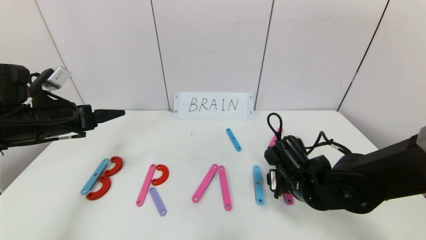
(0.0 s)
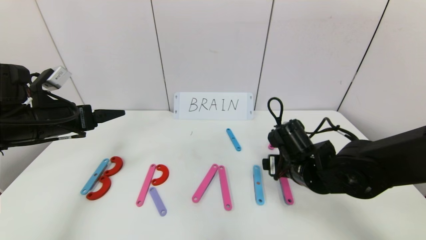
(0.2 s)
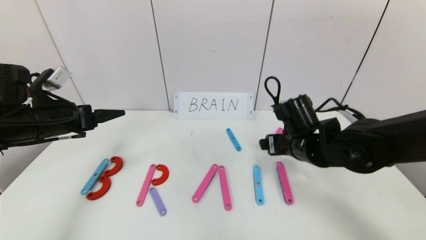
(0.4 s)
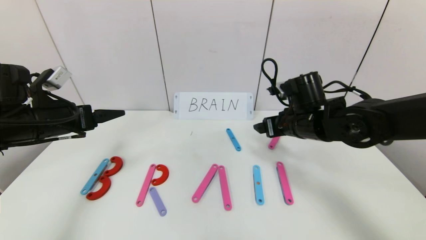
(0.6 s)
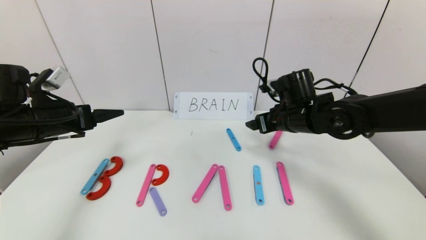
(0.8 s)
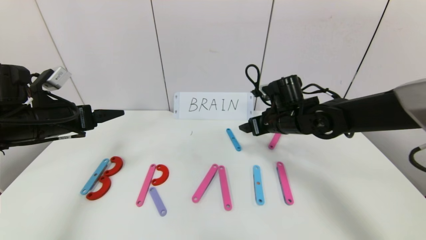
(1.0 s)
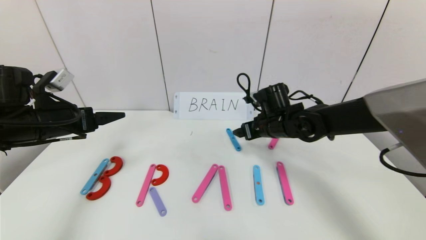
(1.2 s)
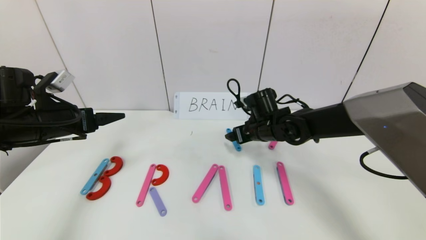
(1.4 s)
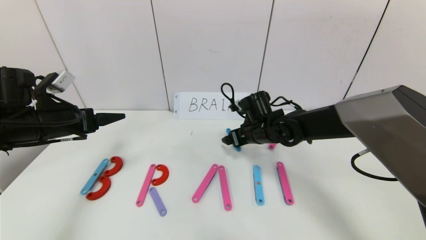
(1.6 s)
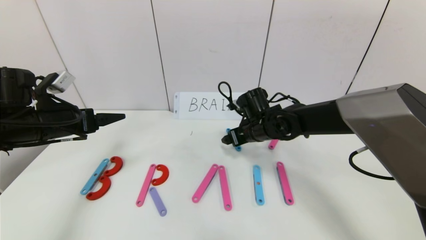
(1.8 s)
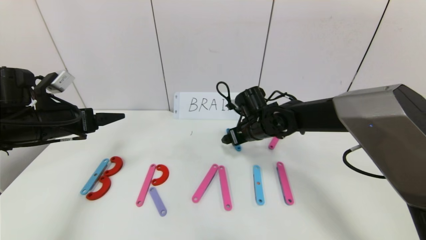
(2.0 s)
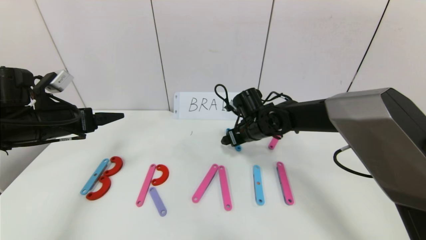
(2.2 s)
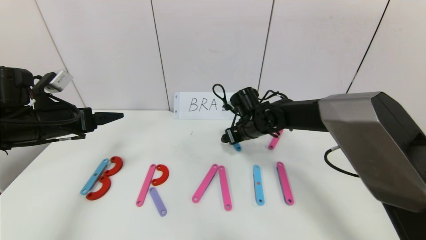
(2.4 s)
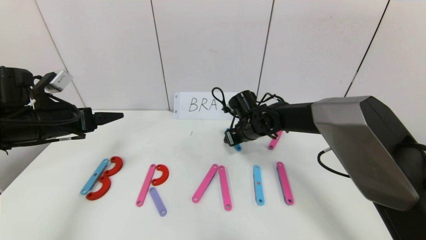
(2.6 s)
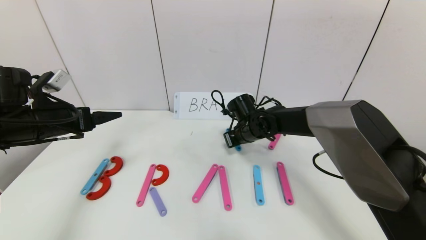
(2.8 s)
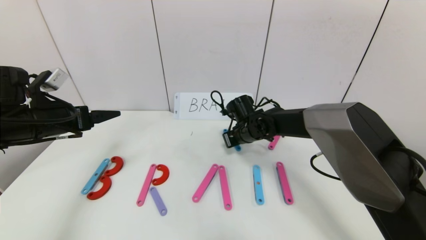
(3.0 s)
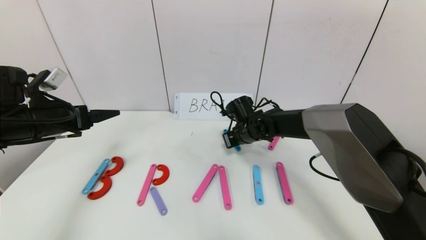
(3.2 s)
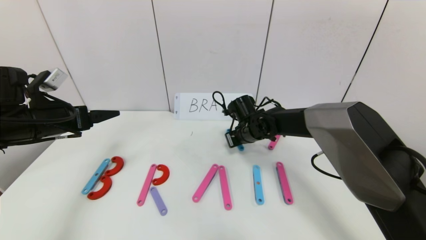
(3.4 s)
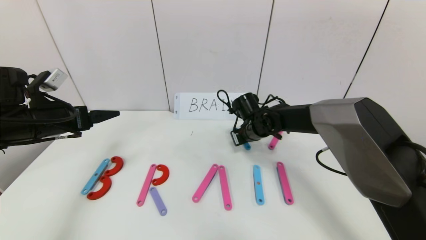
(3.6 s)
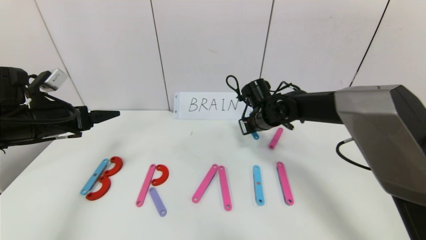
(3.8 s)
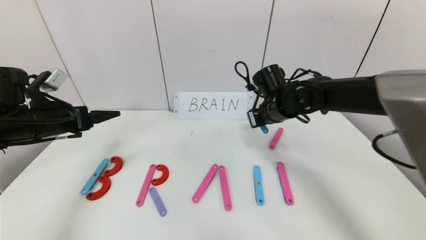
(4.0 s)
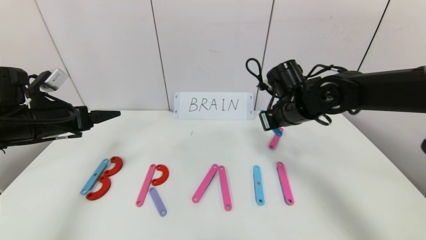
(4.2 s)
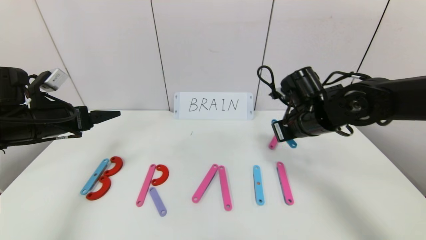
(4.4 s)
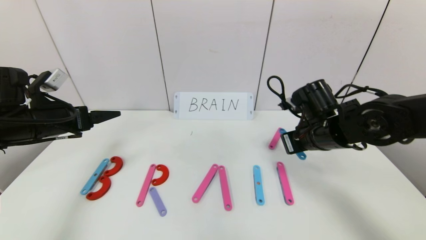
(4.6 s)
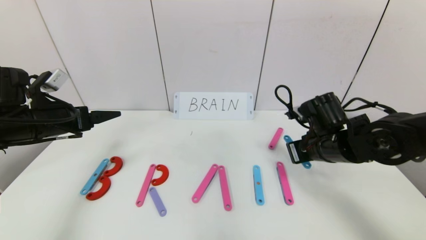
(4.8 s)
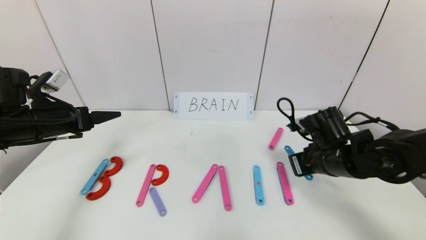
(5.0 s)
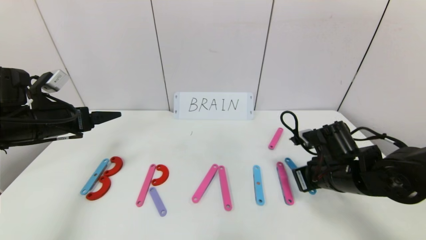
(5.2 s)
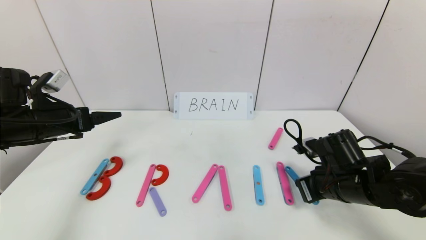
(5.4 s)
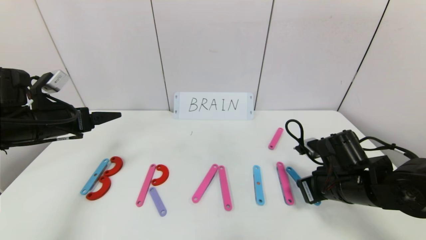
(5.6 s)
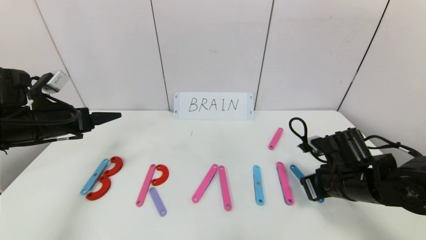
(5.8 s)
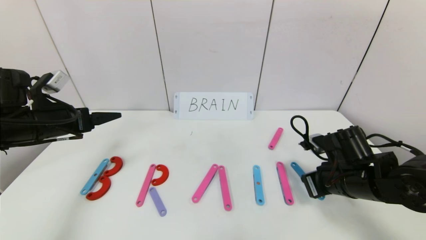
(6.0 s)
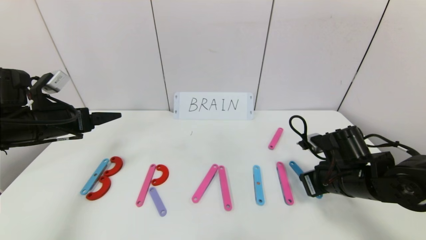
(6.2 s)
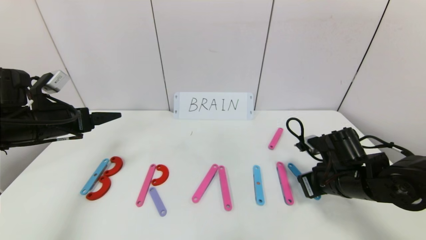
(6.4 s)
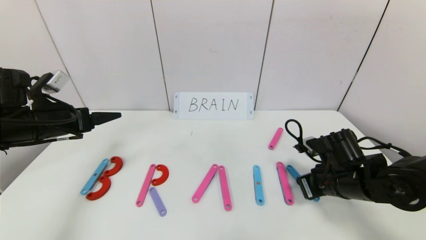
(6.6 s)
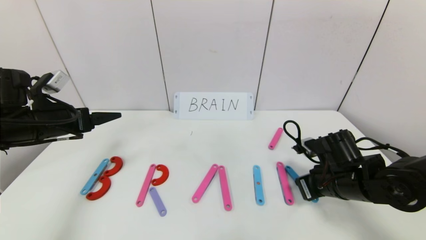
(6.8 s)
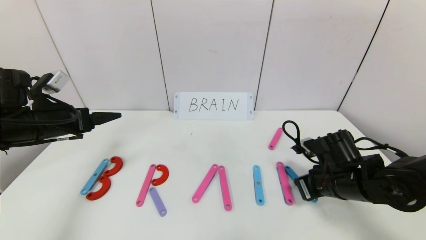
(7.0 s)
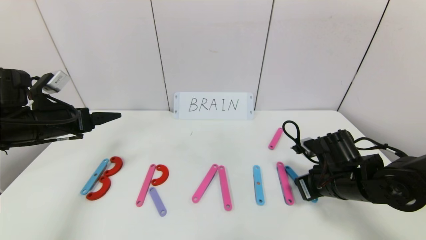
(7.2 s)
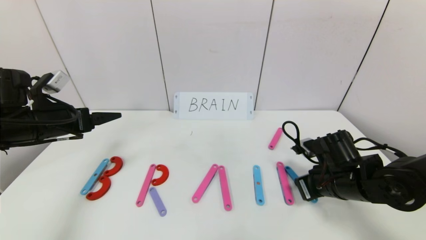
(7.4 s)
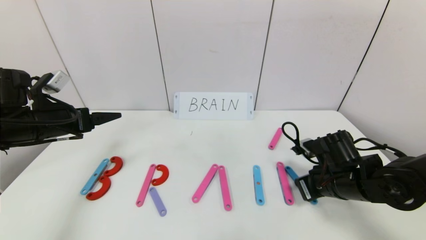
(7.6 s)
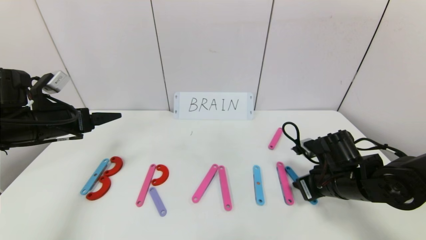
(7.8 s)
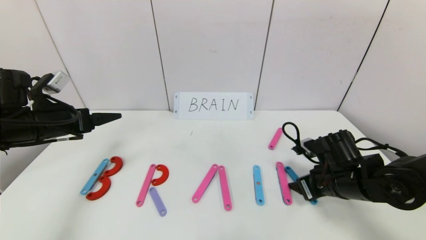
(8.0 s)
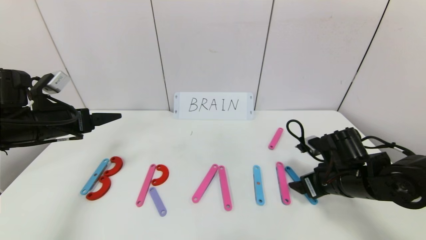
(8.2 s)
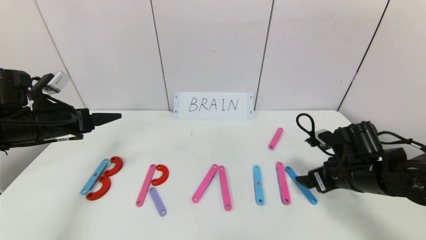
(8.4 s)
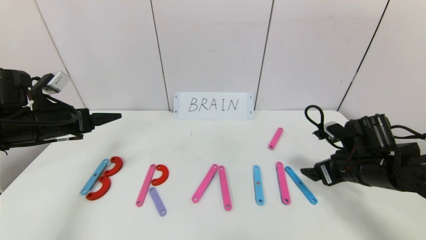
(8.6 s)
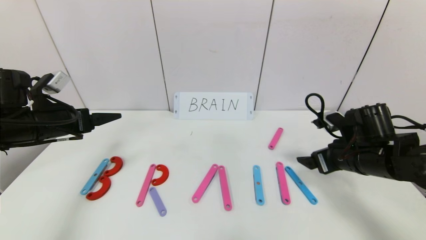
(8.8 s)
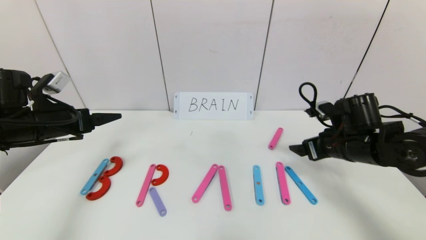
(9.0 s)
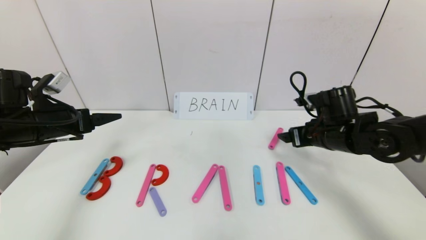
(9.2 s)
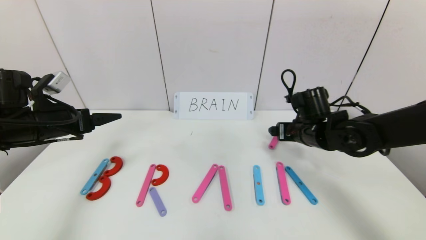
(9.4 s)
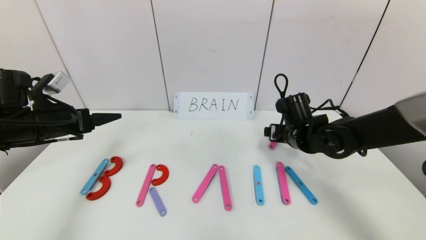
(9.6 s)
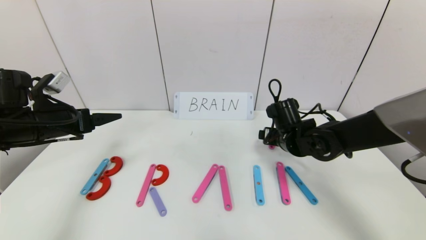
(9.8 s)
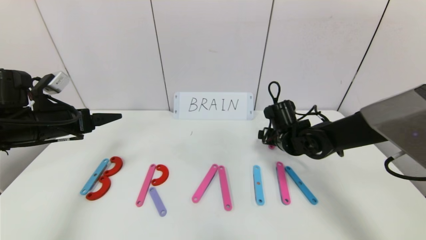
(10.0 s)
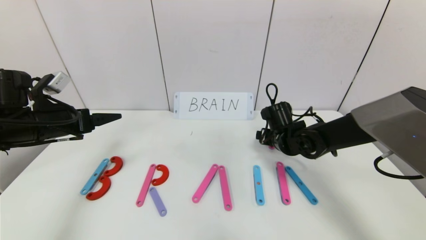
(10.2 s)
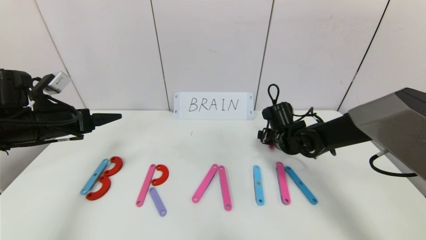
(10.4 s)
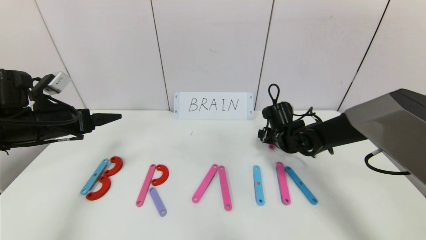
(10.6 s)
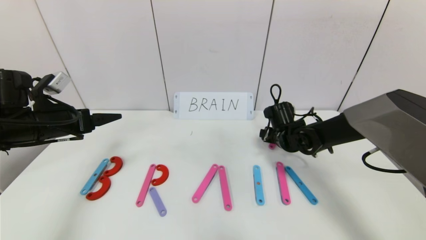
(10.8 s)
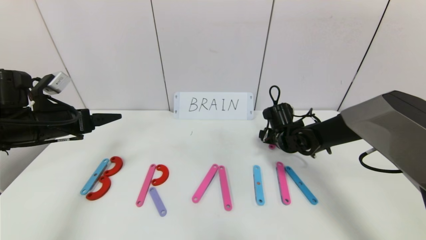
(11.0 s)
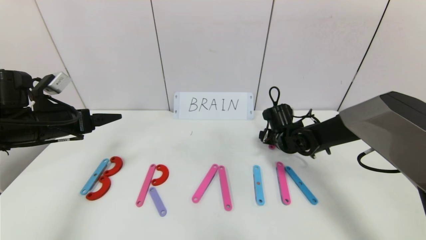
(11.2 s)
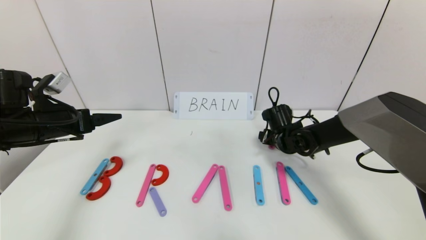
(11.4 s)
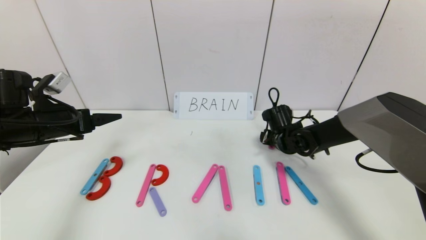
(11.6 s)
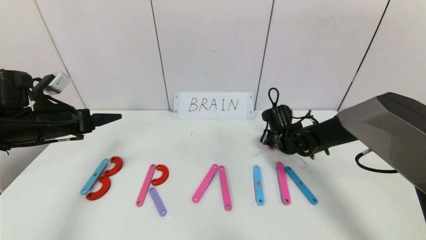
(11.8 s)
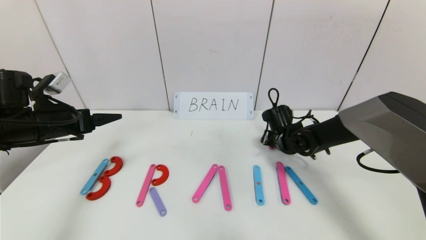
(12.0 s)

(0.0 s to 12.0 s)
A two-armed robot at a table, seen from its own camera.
Task of the whole recording: rearrange the word baai as brain.
0.0 s - 1.6 s: The right gripper is displaced forward and to the left by roughly 15 cm.
1.6 s - 3.0 s: The right gripper moves about 5 cm, and closes up.
3.0 s - 4.4 s: The right gripper shifts some 20 cm upward, backward and to the right.
4.4 s - 6.0 s: The right gripper heads downward, backward and to the right, covering about 15 cm.
6.0 s - 7.6 s: The grippers move only a little.
7.6 s - 9.0 s: The right gripper shifts roughly 5 cm upward, and opens its fingers.
9.0 s - 10.4 s: The right gripper moves forward, to the left and downward, about 15 cm.
10.4 s - 12.0 s: The right gripper closes its fingers.

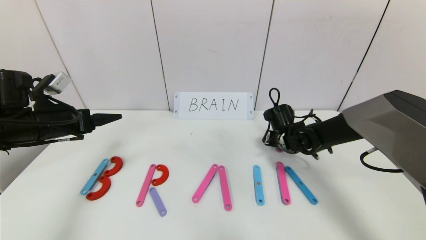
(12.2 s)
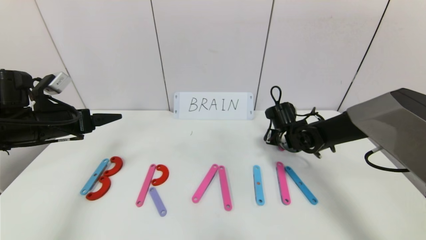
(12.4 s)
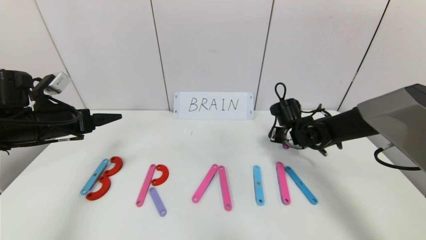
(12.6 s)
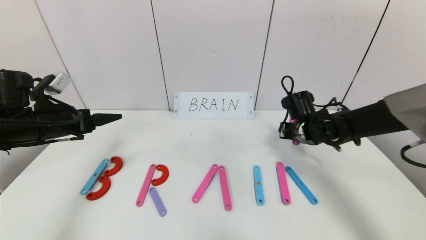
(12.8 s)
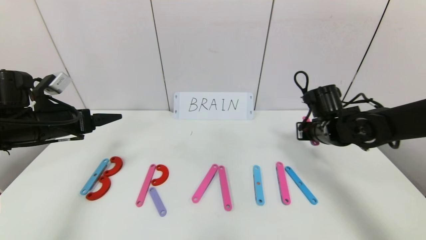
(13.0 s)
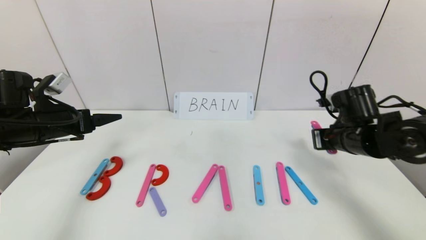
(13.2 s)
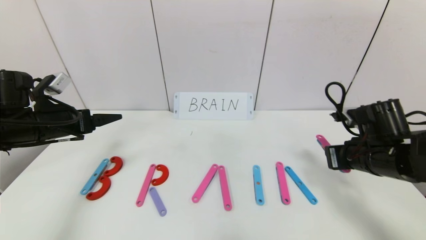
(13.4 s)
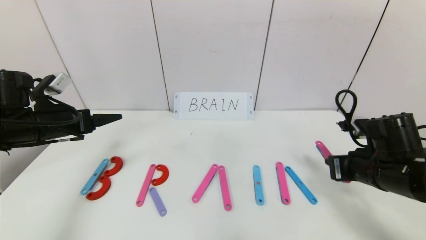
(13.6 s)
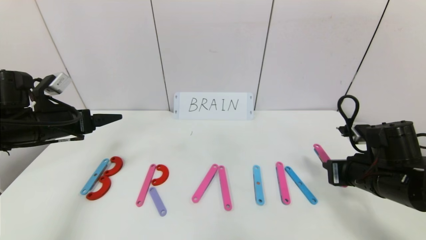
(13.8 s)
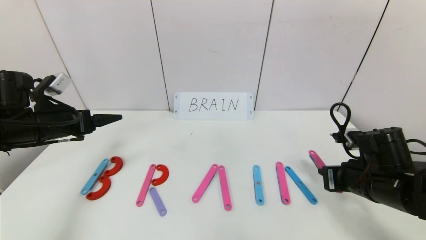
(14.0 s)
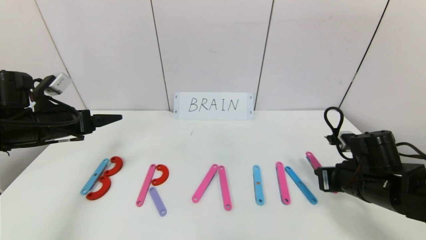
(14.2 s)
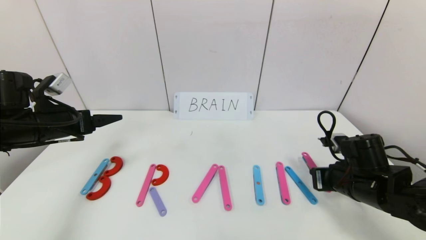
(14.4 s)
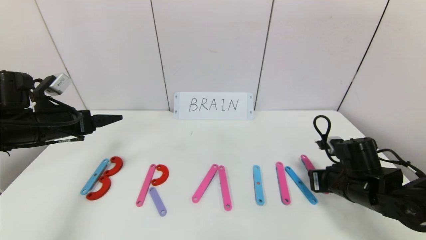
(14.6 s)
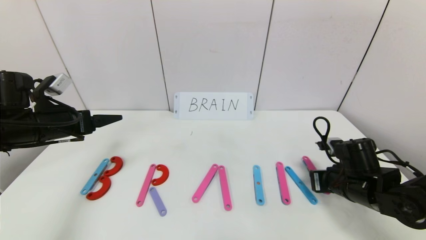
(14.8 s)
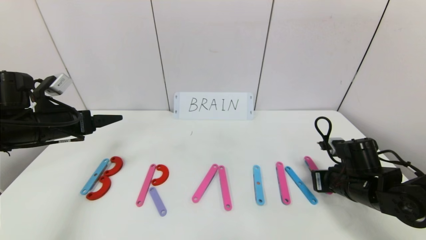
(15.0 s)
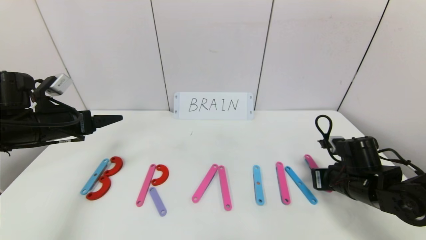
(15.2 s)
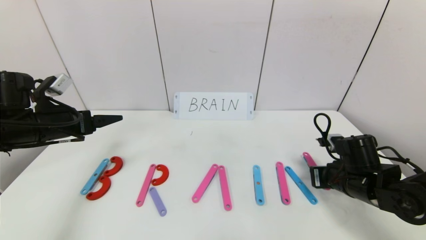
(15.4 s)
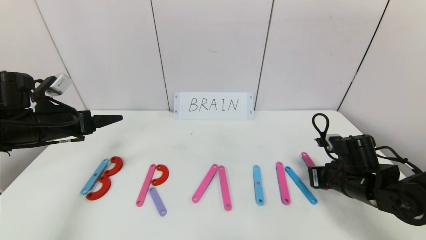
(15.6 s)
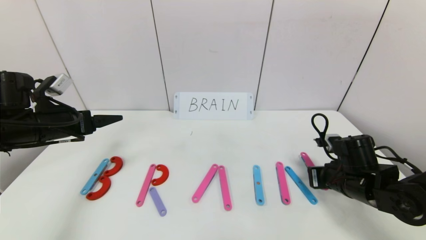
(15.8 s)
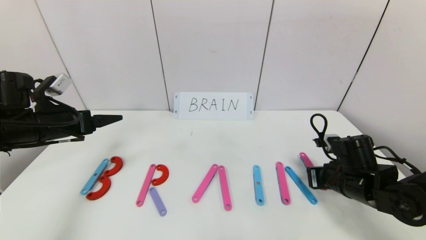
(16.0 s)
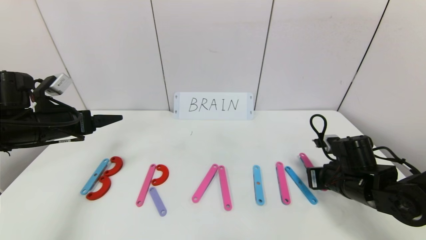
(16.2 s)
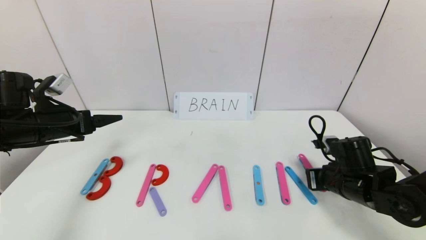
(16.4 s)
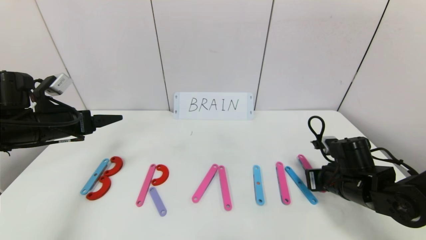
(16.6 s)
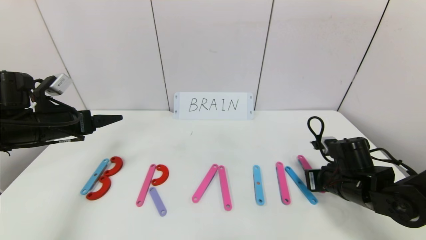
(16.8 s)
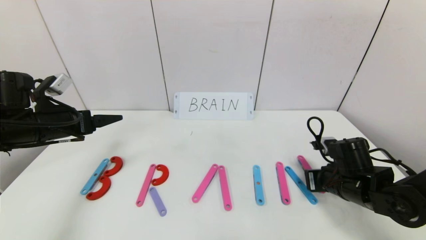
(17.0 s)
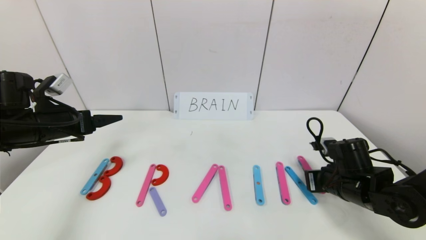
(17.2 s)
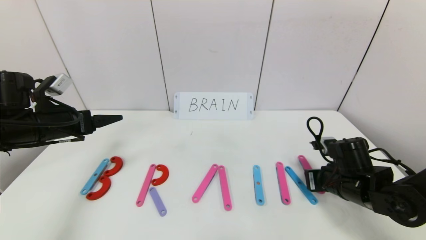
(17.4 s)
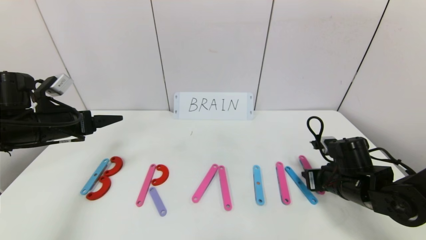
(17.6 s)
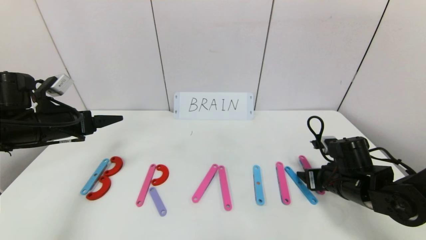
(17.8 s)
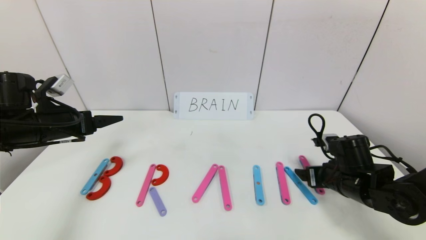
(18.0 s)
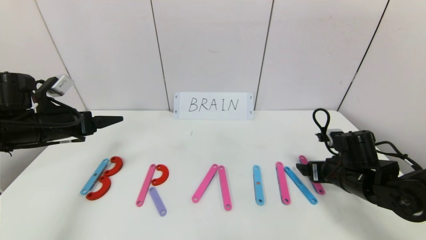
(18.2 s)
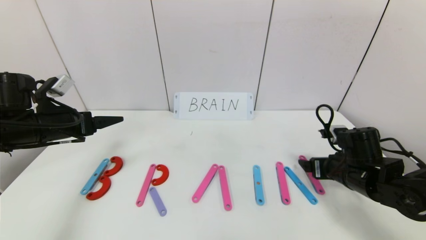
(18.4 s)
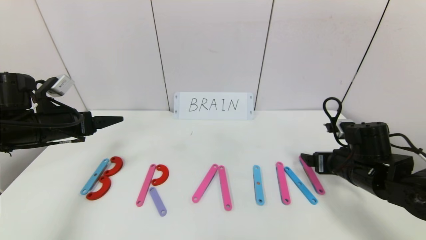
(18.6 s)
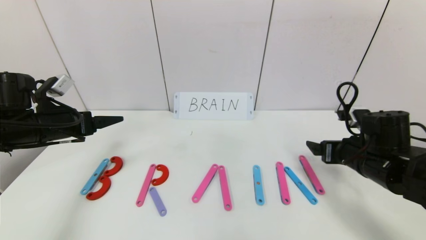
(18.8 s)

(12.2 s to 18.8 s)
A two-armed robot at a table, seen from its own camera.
Task of the whole recording: rearrange the word baai as brain.
Step, 12.2 s - 18.4 s: Place the character N after character I.
12.2 s - 13.8 s: The right gripper goes approximately 20 cm backward and to the right.
13.8 s - 15.4 s: The right gripper goes approximately 5 cm downward.
15.4 s - 17.2 s: Neither gripper changes place.
17.2 s - 18.8 s: The right gripper travels upward by roughly 5 cm, and opens up.
